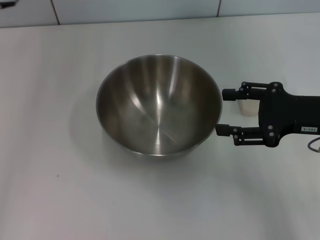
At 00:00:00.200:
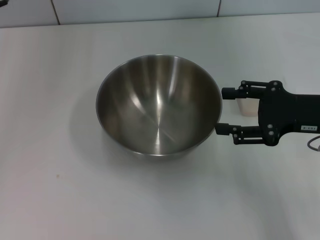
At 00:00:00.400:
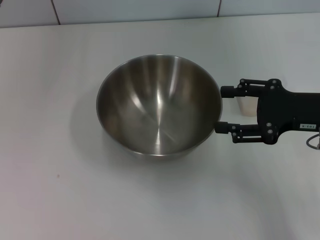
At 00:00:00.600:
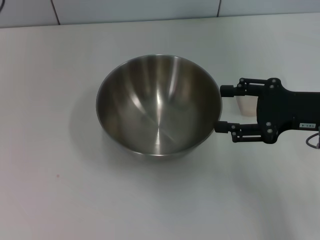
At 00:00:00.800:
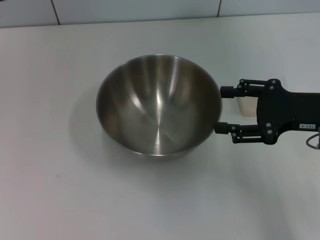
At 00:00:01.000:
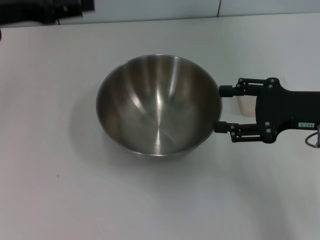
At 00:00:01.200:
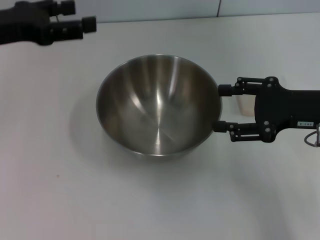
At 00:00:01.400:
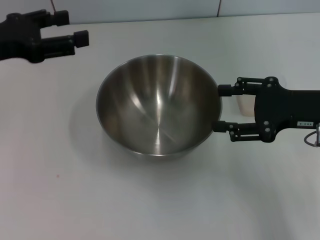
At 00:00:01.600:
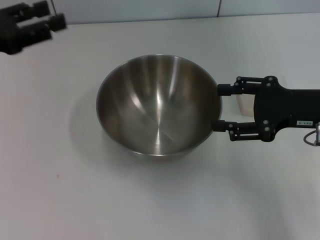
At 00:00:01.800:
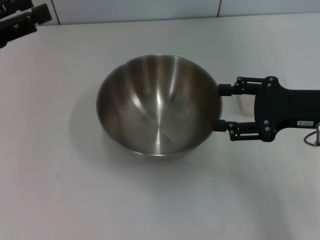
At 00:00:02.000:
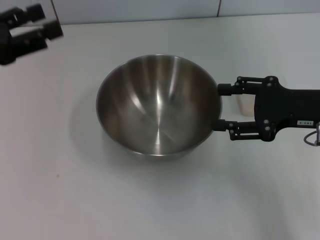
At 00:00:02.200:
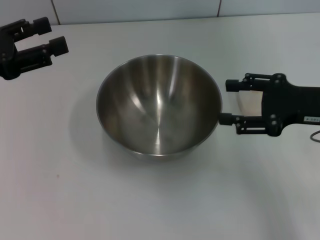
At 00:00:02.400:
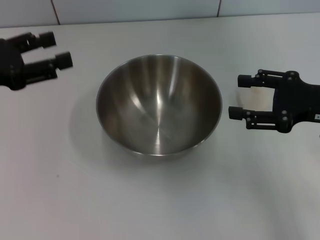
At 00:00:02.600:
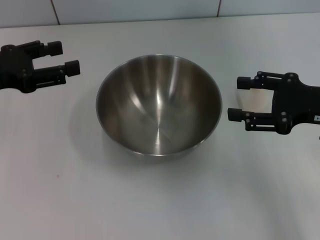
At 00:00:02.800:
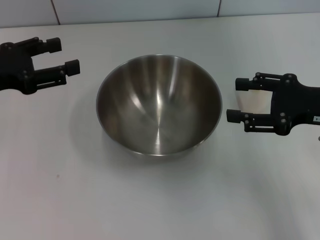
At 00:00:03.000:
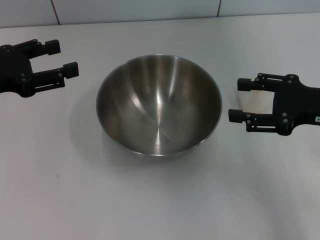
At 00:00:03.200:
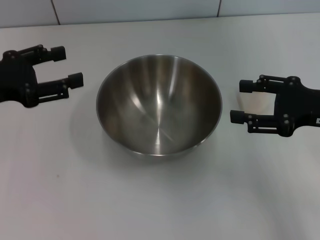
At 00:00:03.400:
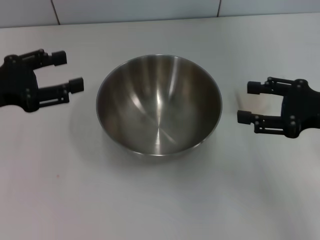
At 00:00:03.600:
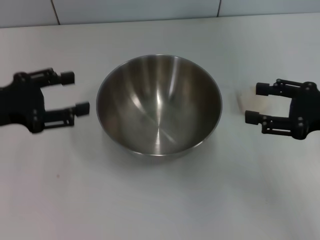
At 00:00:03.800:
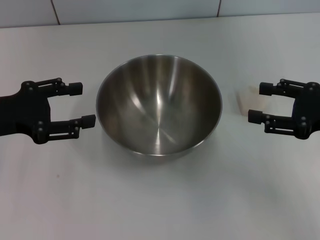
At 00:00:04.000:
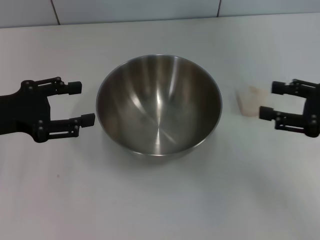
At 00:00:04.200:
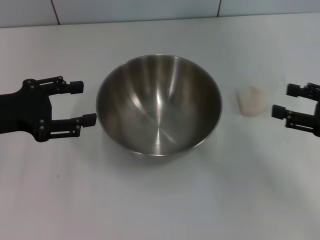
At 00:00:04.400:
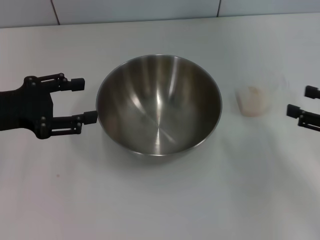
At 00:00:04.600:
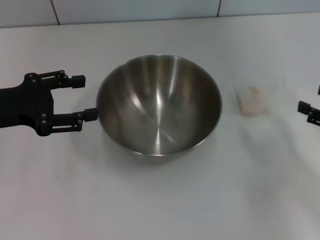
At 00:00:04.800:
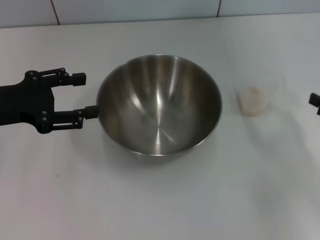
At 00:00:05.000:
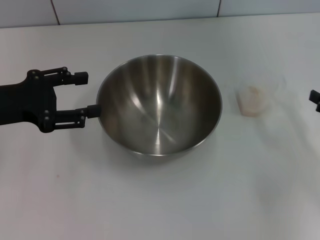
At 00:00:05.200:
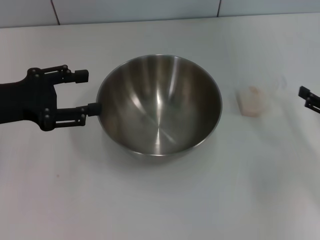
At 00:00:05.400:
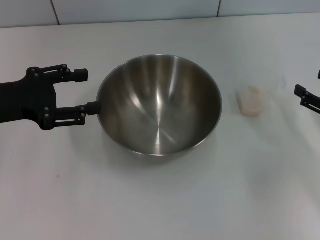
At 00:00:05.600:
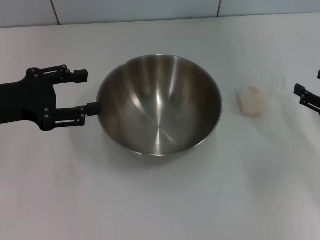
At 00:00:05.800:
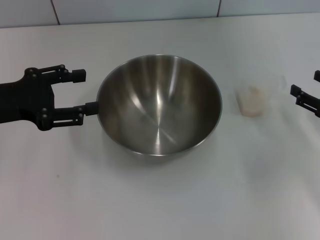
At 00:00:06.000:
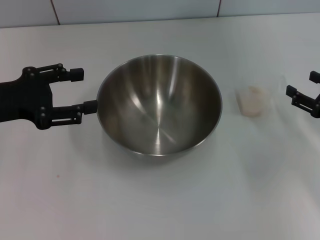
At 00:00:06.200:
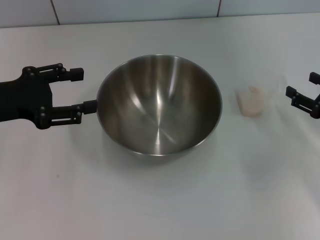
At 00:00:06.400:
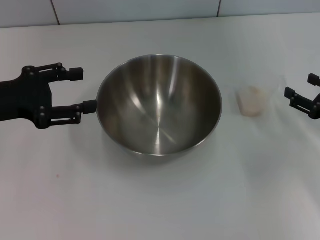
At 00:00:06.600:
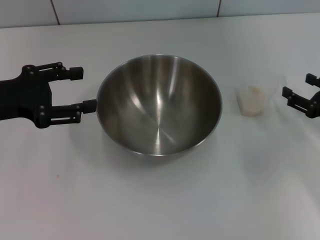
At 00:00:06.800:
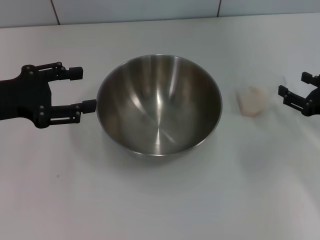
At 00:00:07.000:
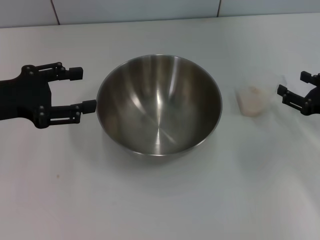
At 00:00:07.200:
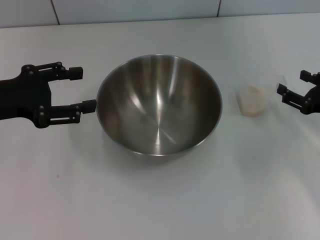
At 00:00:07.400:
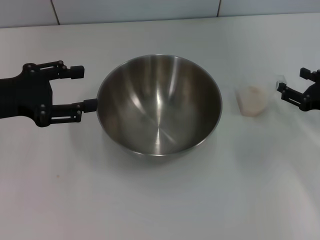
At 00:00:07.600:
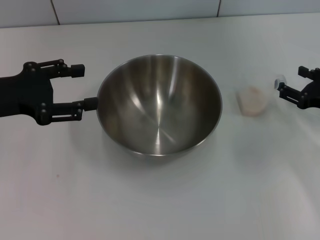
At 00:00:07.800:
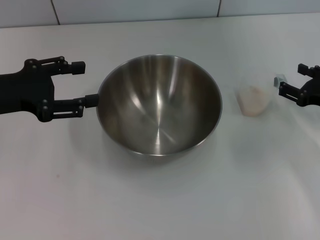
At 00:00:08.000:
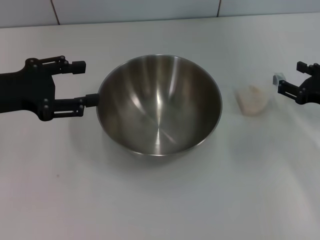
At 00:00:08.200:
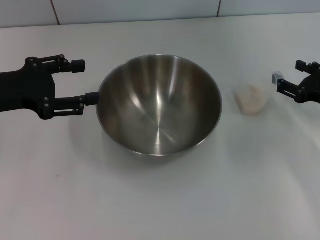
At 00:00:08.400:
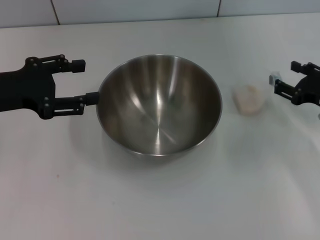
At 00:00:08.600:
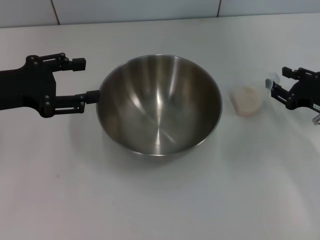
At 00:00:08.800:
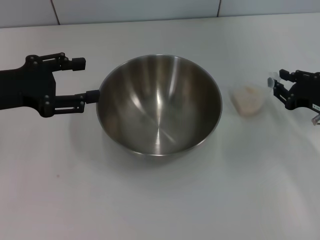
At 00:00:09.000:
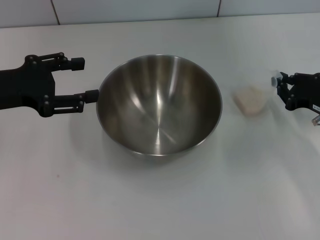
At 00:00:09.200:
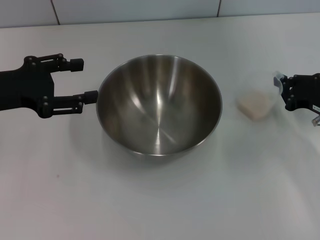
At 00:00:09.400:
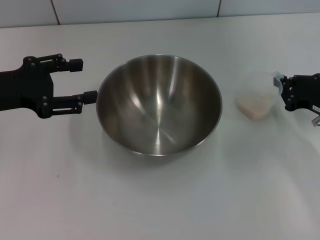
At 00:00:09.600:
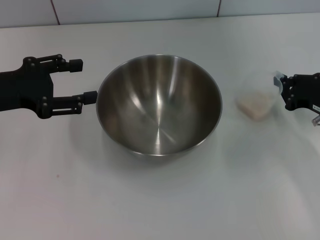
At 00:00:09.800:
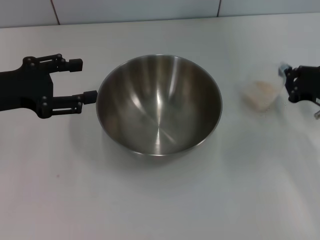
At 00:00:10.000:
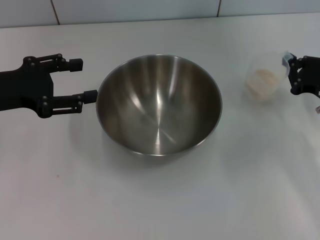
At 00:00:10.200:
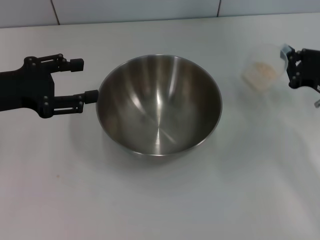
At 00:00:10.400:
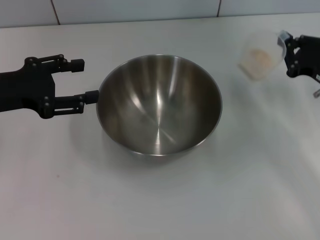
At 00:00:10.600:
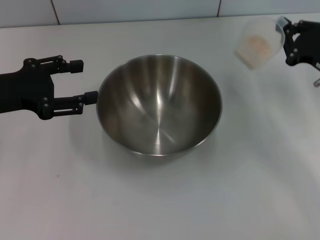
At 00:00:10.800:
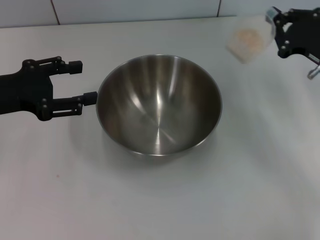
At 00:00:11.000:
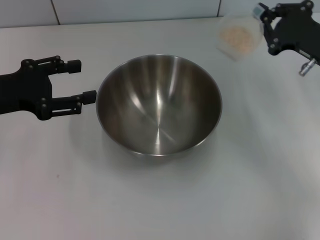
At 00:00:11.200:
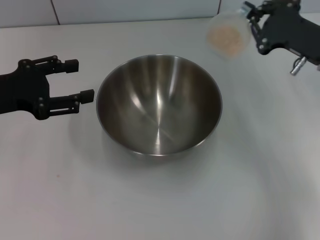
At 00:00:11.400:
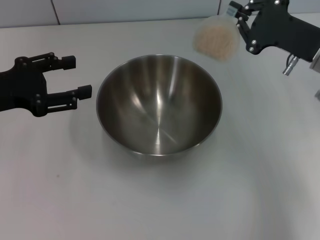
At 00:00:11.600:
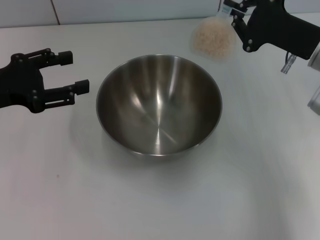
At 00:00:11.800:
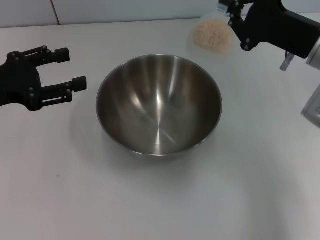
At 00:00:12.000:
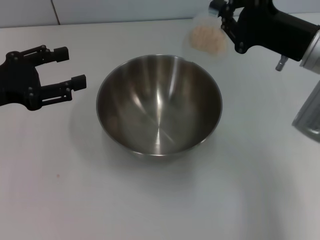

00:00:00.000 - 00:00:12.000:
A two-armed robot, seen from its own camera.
Task of the whole recording: Place the bowl in the middle of the table with one hand and pour the rice from the grain cup into it with the other hand.
Step, 00:00:00.000 - 00:00:10.600: Pick up the cup with rice in it with the right gripper.
00:00:00.000 - 00:00:01.600: The left gripper goes approximately 15 cm backward and to the left, and opens.
00:00:01.600 - 00:00:03.000: The grippers move only a little.
00:00:03.000 - 00:00:04.400: The right gripper shifts about 5 cm to the right.
00:00:04.400 - 00:00:06.000: The right gripper goes about 5 cm downward.
00:00:06.000 - 00:00:07.600: The grippers make only small movements.
00:00:07.600 - 00:00:09.000: The right gripper closes its fingers.
00:00:09.000 - 00:00:10.400: The right gripper closes its fingers.
00:00:10.400 - 00:00:12.000: The right gripper travels to the left and upward by roughly 10 cm.

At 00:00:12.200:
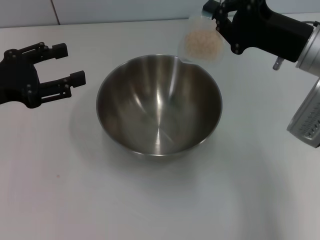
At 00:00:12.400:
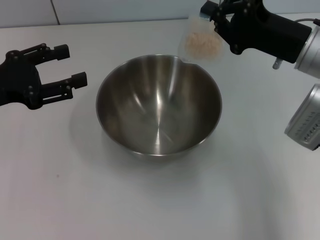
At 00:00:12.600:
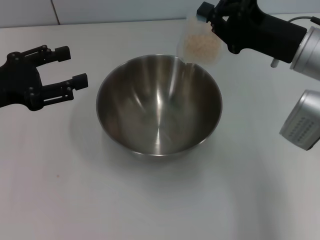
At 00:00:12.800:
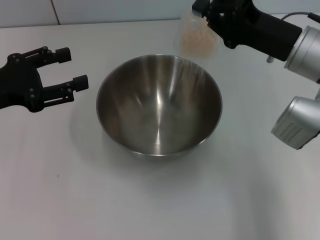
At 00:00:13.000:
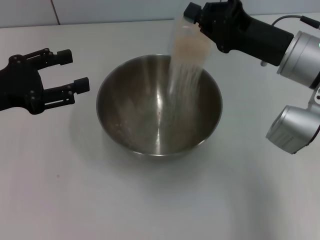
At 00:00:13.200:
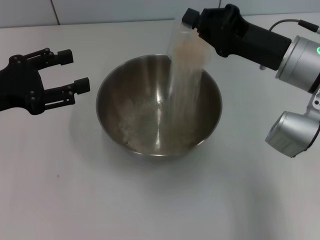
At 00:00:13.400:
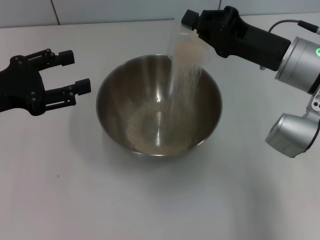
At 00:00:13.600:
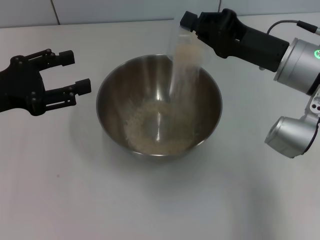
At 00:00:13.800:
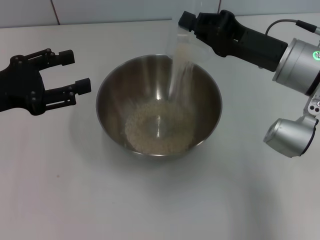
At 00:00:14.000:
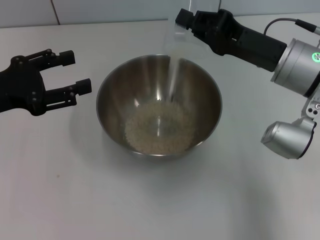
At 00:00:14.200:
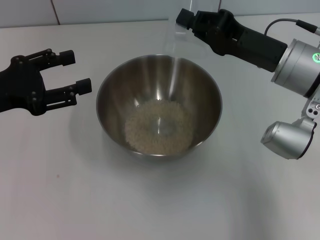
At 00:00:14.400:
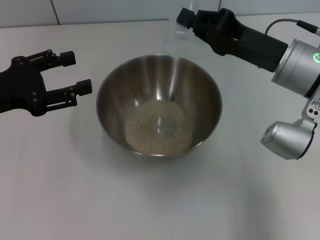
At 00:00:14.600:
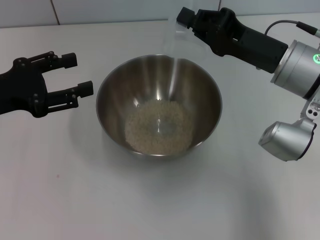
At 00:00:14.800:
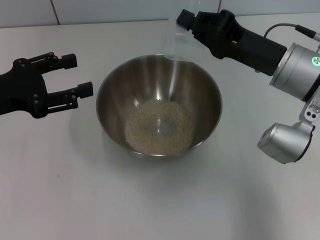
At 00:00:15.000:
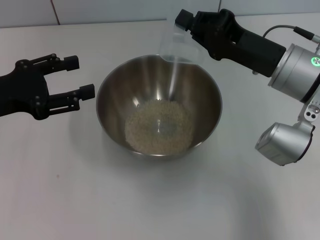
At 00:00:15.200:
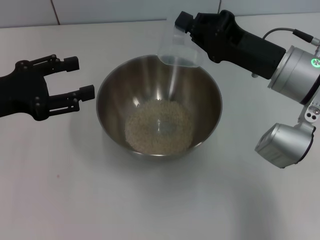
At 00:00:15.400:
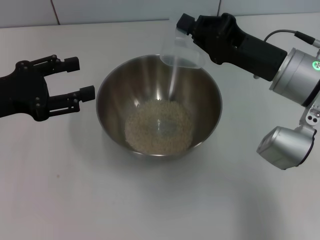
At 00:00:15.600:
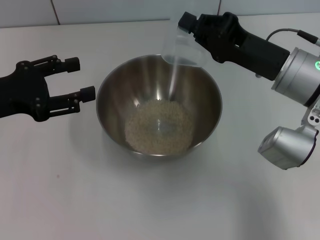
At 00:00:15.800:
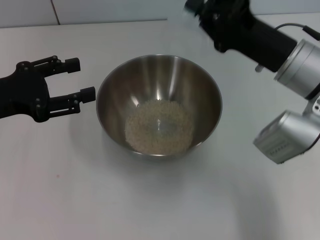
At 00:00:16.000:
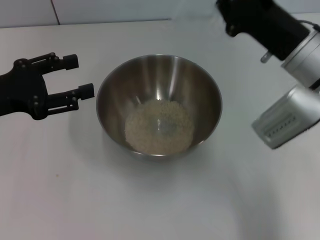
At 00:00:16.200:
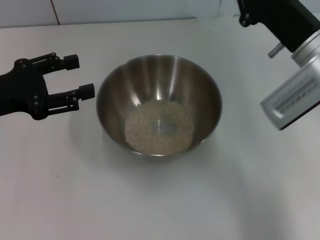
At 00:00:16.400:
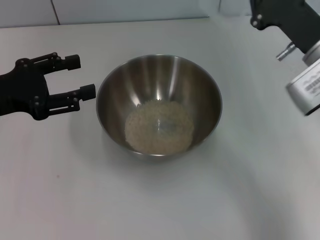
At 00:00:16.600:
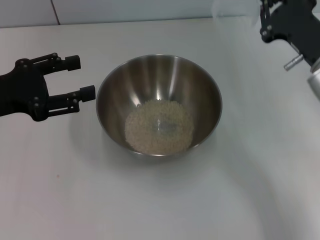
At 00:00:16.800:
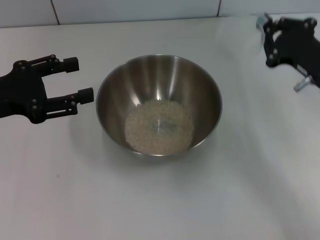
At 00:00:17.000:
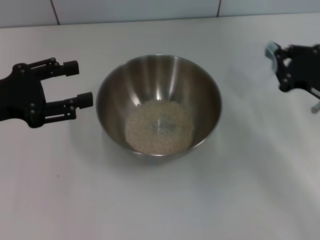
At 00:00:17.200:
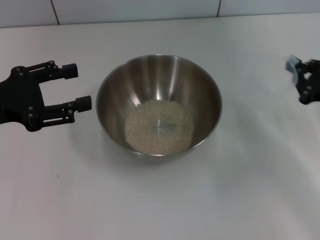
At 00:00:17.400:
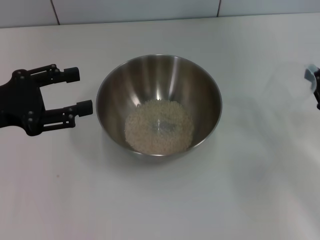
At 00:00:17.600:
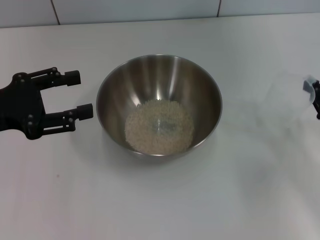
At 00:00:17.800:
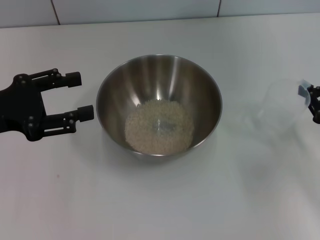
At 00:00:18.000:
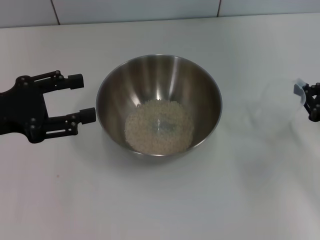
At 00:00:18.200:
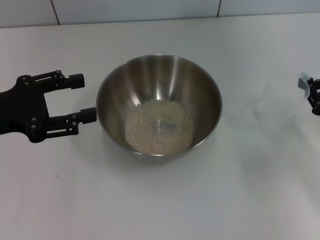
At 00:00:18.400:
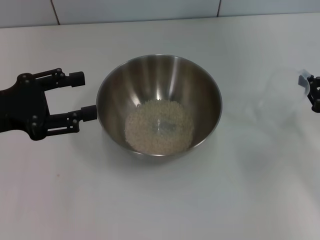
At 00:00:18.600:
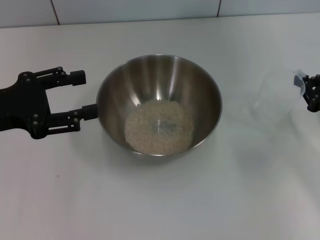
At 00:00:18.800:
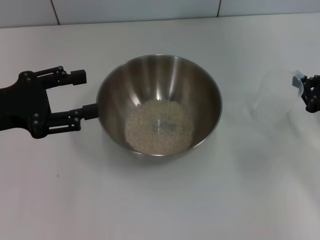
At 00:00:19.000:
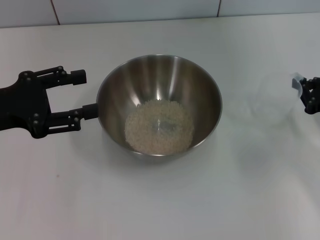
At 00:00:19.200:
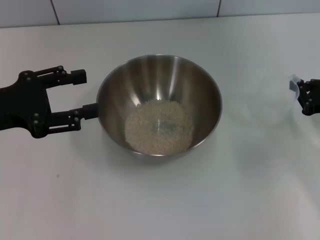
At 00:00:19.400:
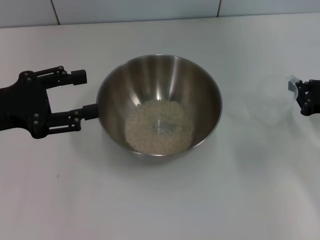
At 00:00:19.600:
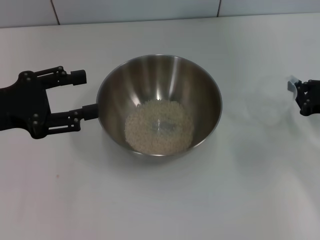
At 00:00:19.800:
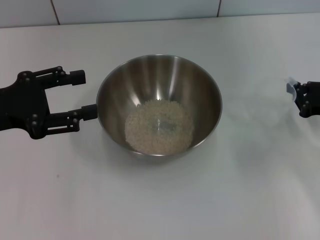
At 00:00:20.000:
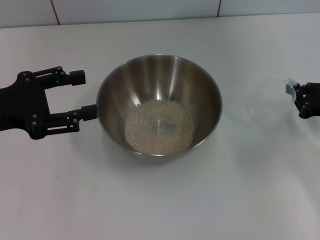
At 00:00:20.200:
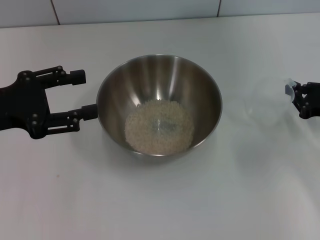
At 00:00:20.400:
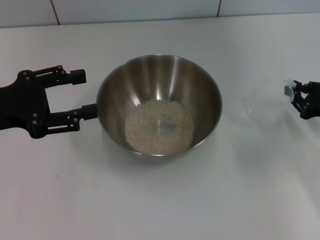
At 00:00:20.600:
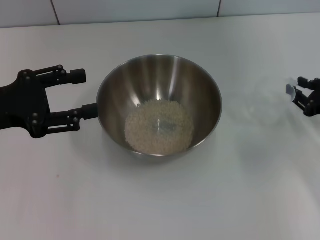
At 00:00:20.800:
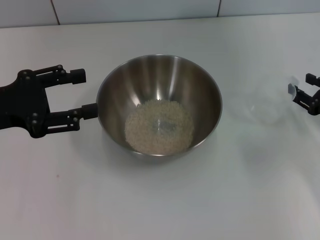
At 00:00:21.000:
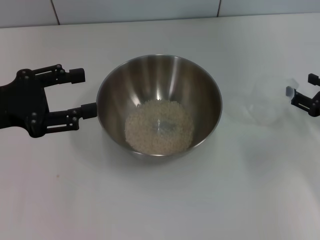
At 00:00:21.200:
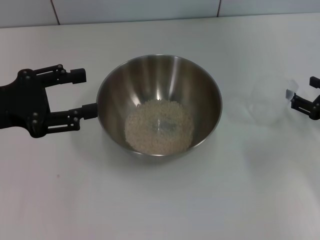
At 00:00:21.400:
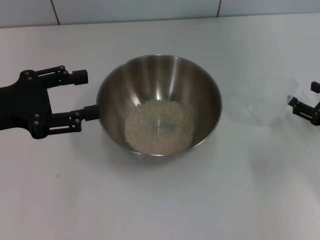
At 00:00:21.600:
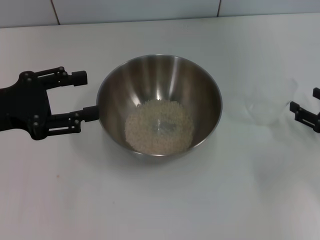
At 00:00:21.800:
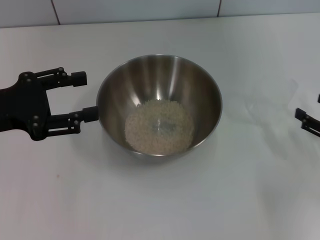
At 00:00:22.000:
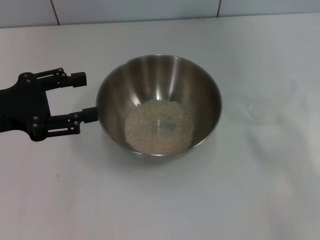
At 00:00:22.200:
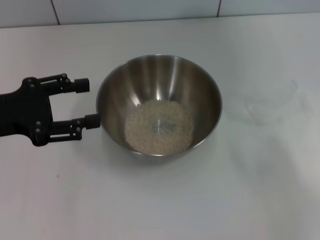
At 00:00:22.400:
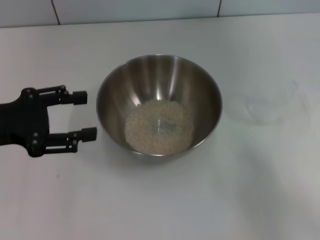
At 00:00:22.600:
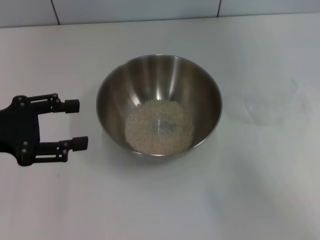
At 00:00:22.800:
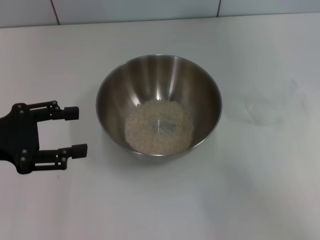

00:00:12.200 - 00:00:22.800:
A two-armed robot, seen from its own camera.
Task of the whole recording: Place the bowl in the middle of the table with one hand and pour the rice from the grain cup into it with the other hand.
Step, 00:00:12.200 - 00:00:16.400: Pour the rice from the cup into the bowl with the right gripper.
Step, 00:00:16.600 - 00:00:21.800: Place the cup on the table with the right gripper.
00:00:13.800 - 00:00:15.200: The grippers make only small movements.
00:00:15.200 - 00:00:16.800: The right gripper goes some 10 cm to the right.
00:00:16.800 - 00:00:18.200: The right gripper heads to the right, covering some 10 cm.
00:00:18.200 - 00:00:19.800: The grippers stay close to where they were, moving slightly.
00:00:19.800 - 00:00:21.200: The right gripper opens its fingers.
00:00:21.200 - 00:00:22.800: The right gripper travels upward and backward by roughly 15 cm.
